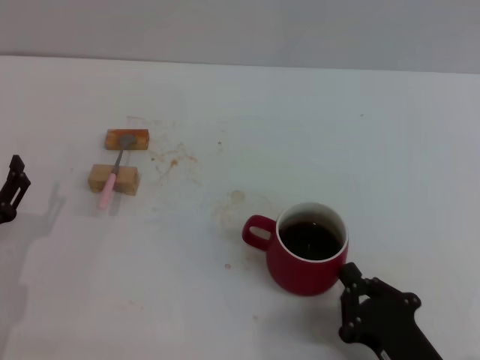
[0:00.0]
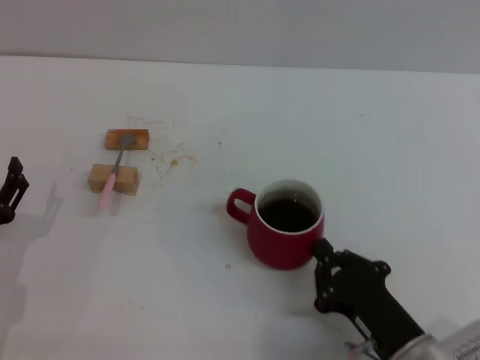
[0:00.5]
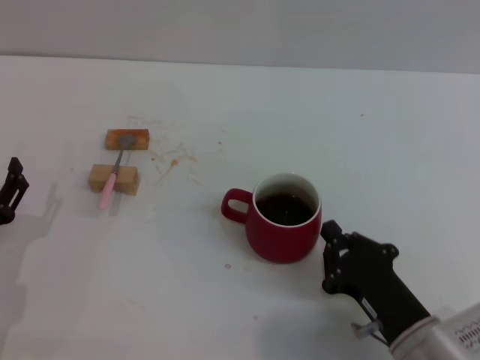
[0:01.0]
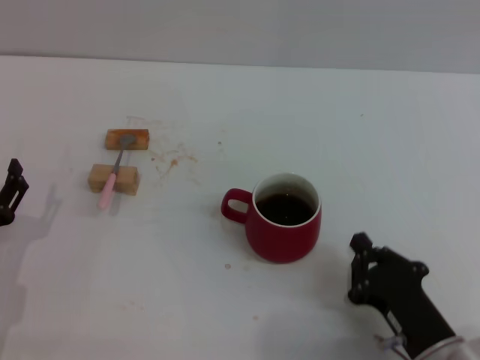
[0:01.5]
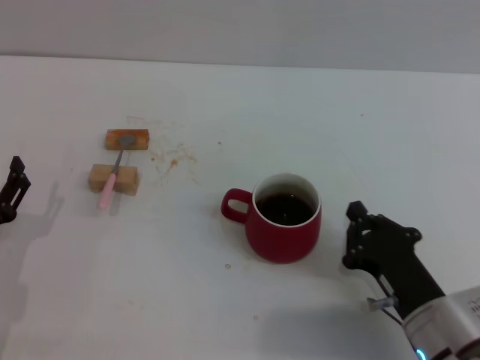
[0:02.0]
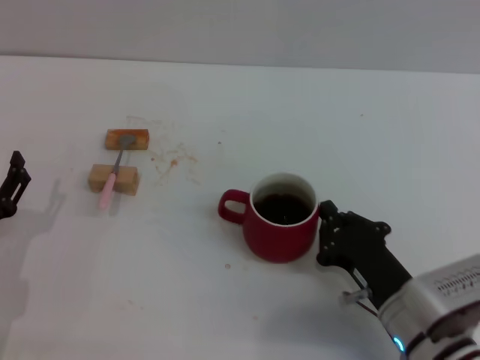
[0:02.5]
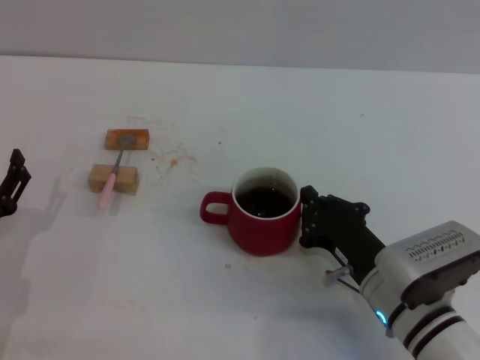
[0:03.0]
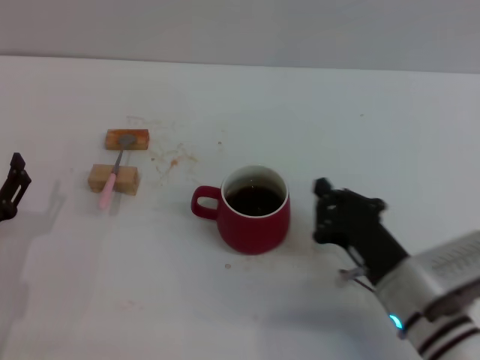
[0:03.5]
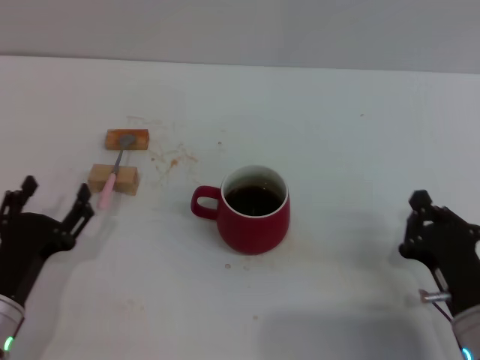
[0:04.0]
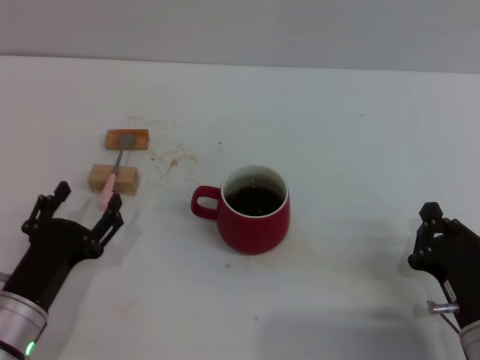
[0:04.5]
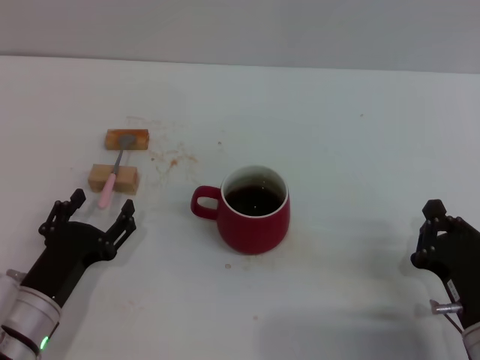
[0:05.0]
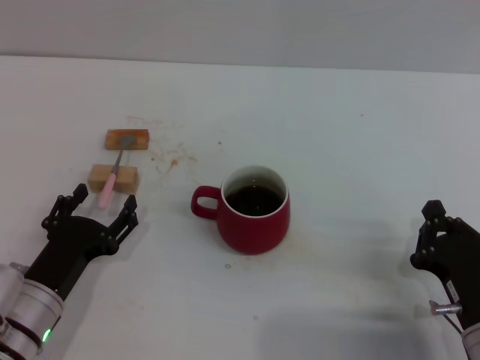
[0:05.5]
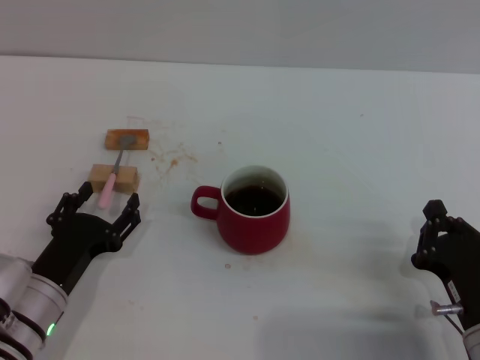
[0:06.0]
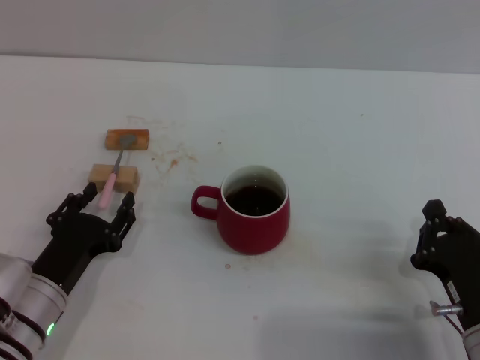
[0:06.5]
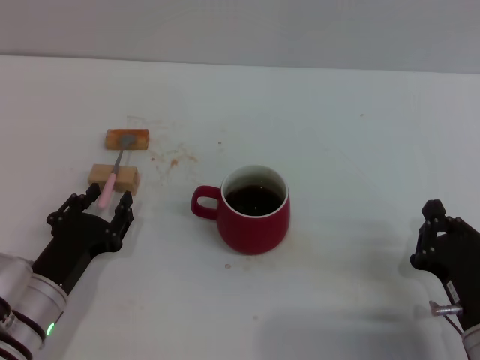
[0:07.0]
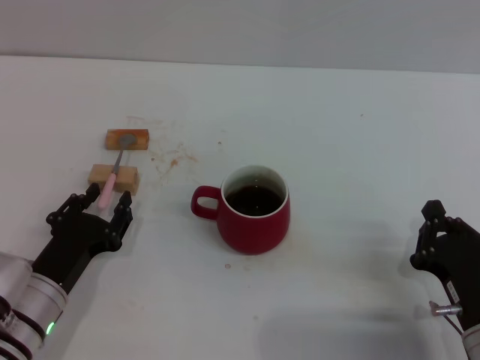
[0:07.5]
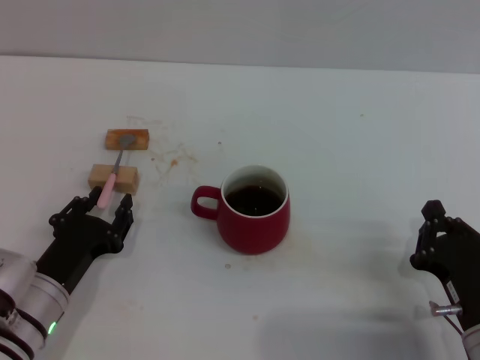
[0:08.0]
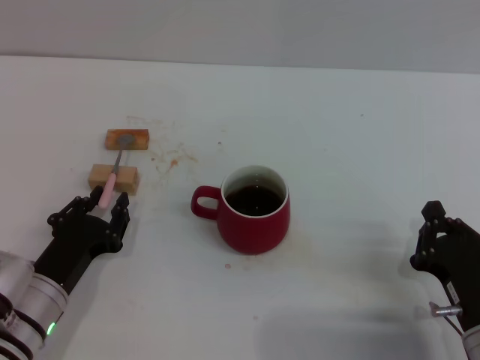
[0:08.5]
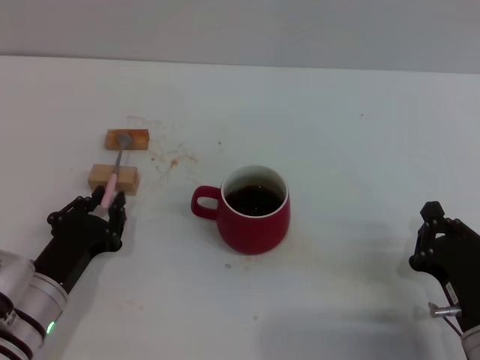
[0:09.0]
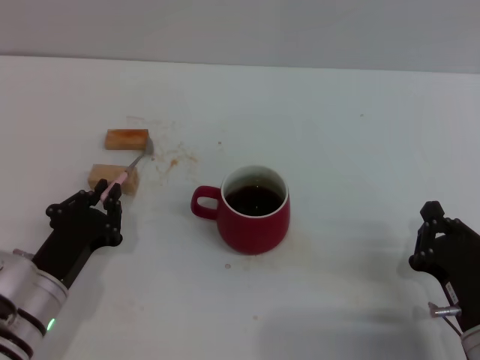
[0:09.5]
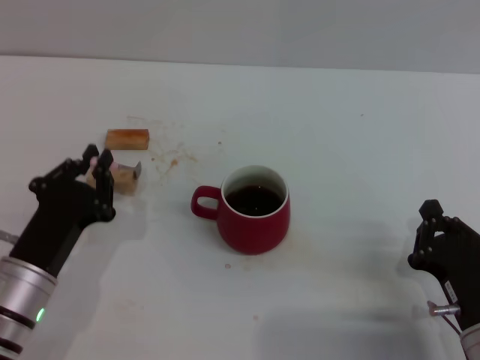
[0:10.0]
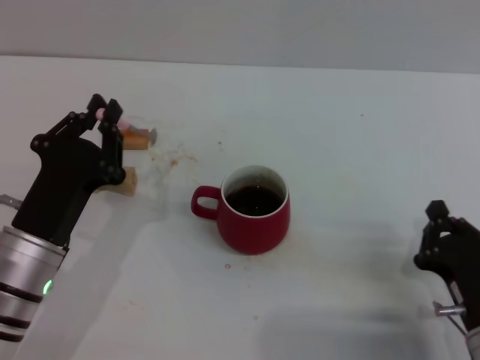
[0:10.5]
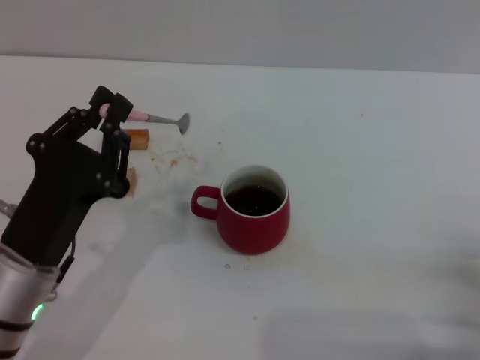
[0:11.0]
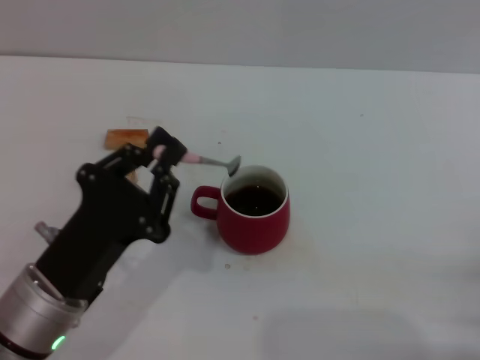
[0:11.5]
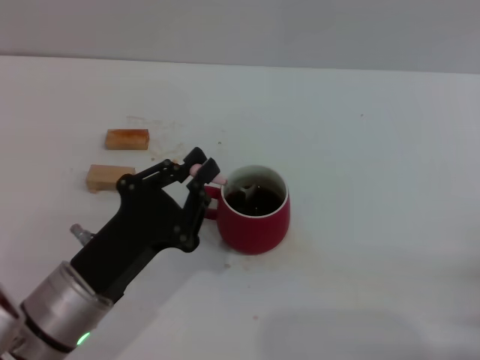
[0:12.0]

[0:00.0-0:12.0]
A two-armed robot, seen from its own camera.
Task of the whole recording: Move the red cup to the center, lift the pink spoon, stir it three times in the cup, and put the spoon into the cup.
Step, 0:00.0 to 0:03.0: Move the cup in the center of the table with right gripper.
Step, 0:03.5 to 0:09.0: Grasp the spoon with left gripper.
0:00.0 to 0:02.0: The right gripper travels forward by about 5 cm.
0:02.0 to 0:04.0: The grippers stay close to where they were, moving slightly.
0:04.0 to 0:06.0: The grippers make only small movements.
0:06.0 to 0:08.0: The left gripper closes up.
0:08.0 to 0:10.0: The left gripper closes up.
0:10.0 to 0:12.0: The left gripper changes place by approximately 5 cm, while the right gripper shifts roughly 10 cm to the right.

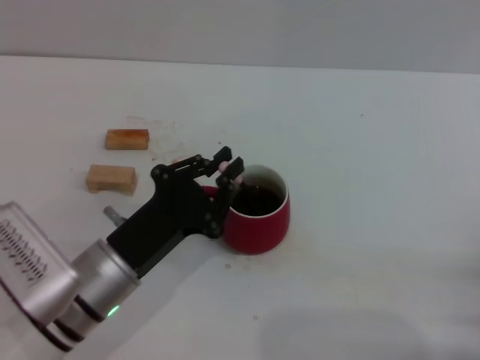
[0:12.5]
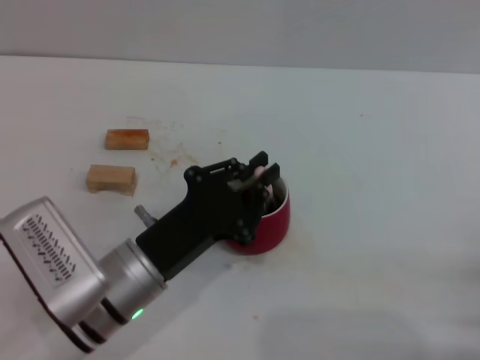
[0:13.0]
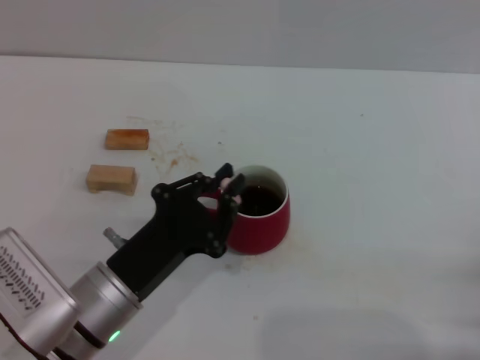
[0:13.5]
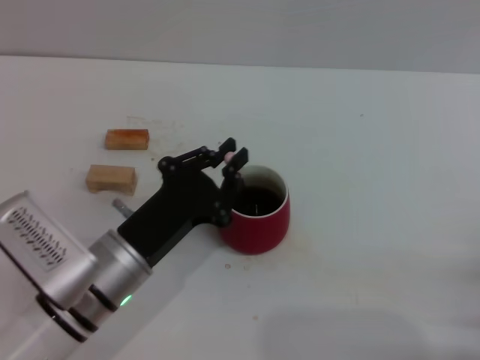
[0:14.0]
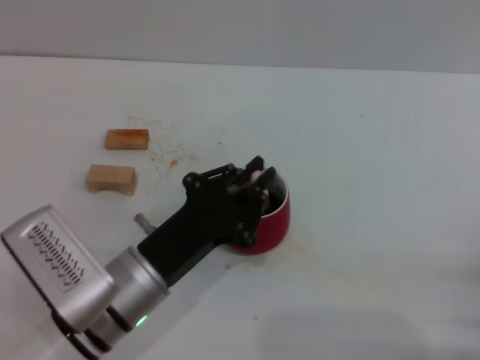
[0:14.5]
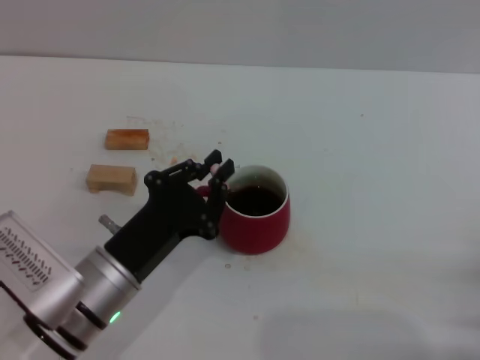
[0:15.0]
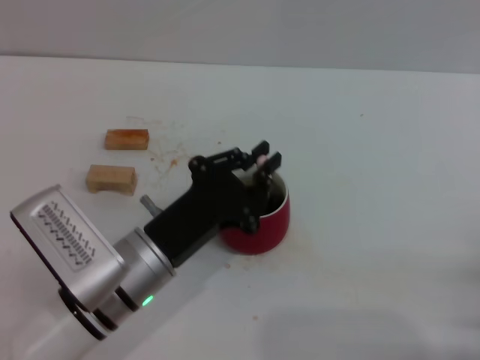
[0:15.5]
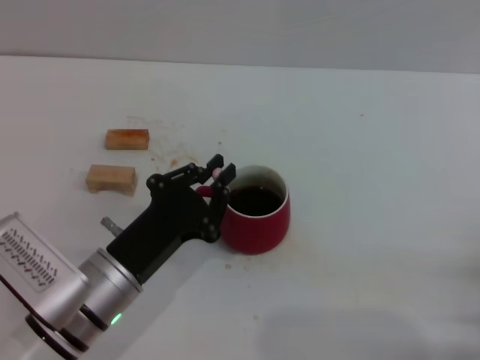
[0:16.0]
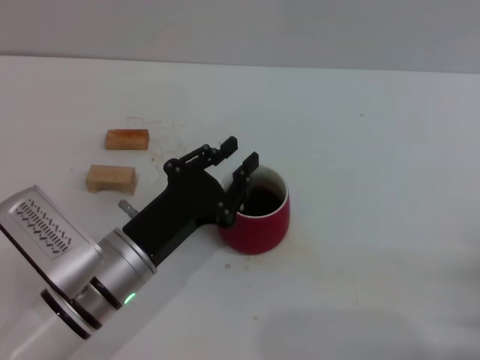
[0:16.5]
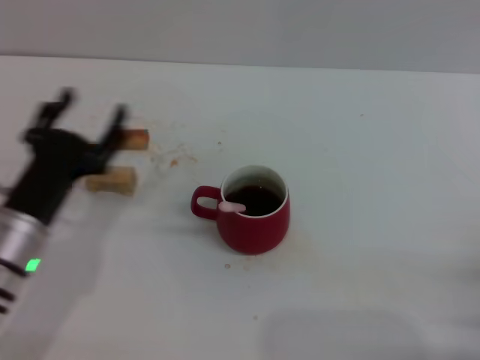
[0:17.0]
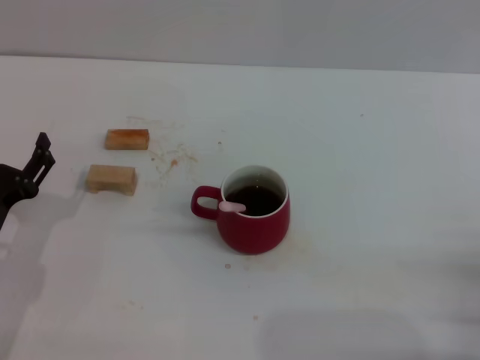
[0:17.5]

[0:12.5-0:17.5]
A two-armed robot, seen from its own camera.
Task of the whole recording: Move the red cup to the center, lift the pink spoon, stir it three times in the cup, and put the spoon into the cup.
Step, 0:12.5 to 0:16.5: Stir the coffee with left gripper.
0:12.5 to 0:15.0: The grippers move only a little.
0:15.0 to 0:17.5: The left gripper goes roughly 15 cm to the left, and opens its fingers.
